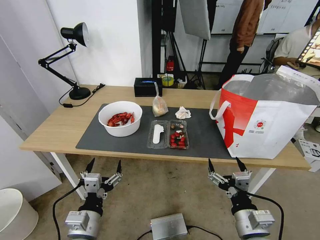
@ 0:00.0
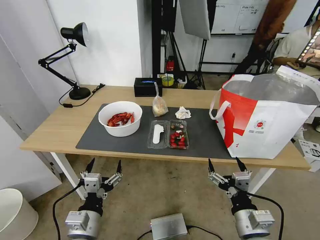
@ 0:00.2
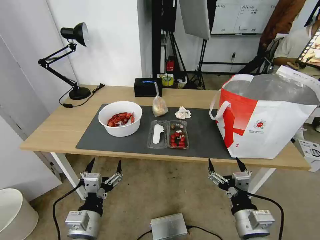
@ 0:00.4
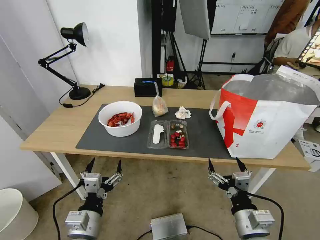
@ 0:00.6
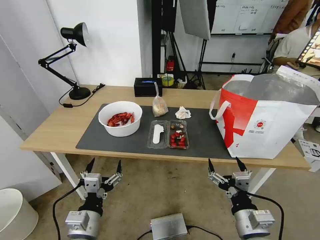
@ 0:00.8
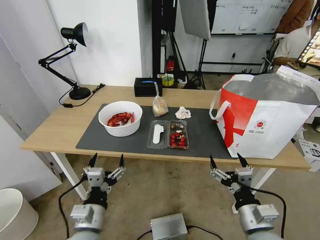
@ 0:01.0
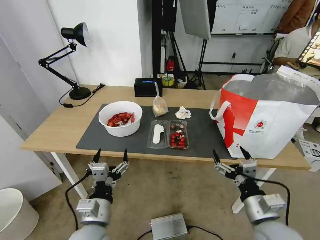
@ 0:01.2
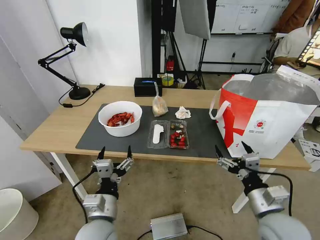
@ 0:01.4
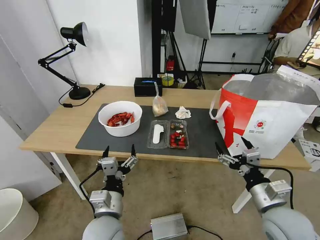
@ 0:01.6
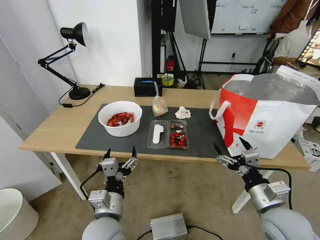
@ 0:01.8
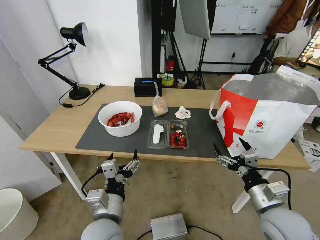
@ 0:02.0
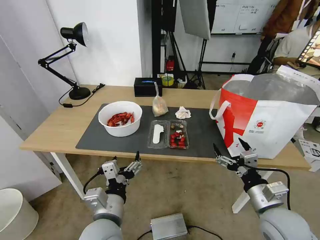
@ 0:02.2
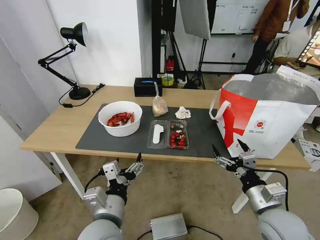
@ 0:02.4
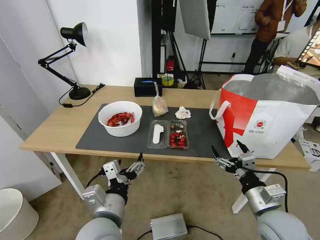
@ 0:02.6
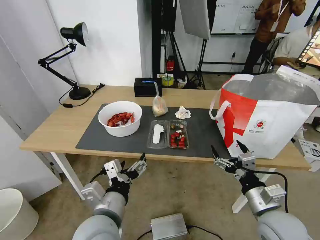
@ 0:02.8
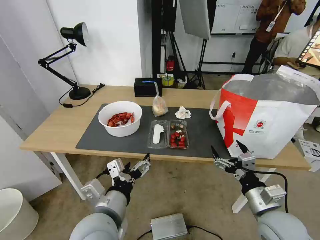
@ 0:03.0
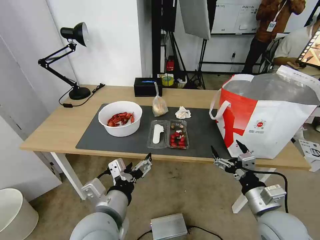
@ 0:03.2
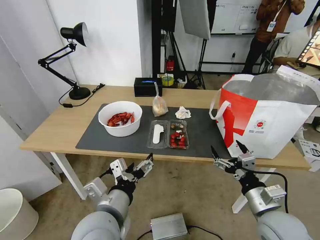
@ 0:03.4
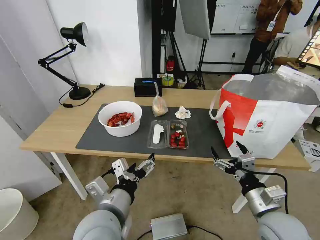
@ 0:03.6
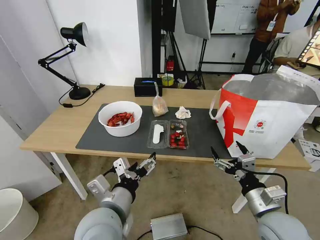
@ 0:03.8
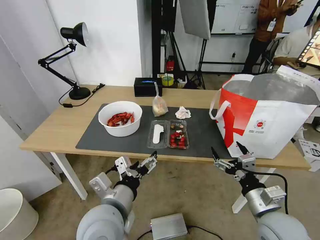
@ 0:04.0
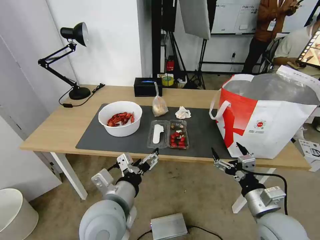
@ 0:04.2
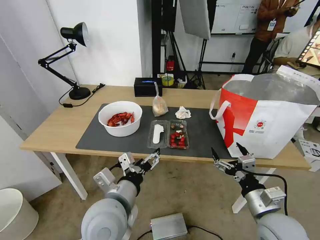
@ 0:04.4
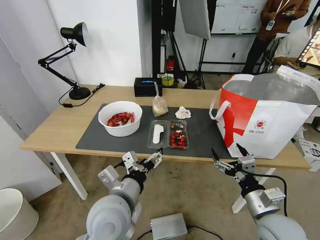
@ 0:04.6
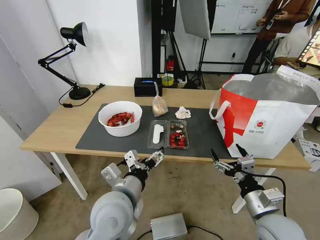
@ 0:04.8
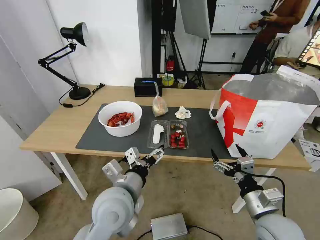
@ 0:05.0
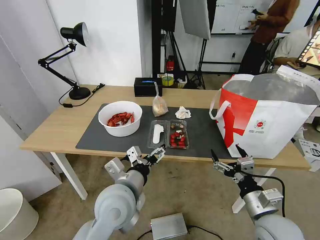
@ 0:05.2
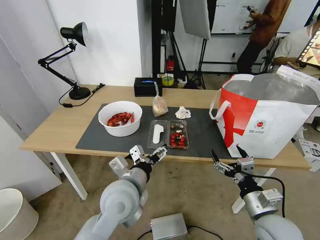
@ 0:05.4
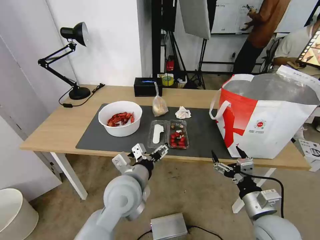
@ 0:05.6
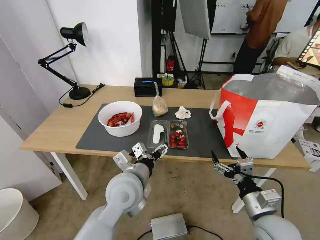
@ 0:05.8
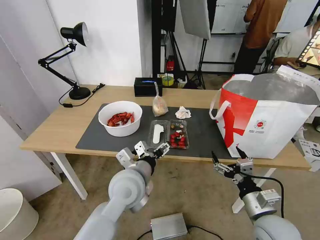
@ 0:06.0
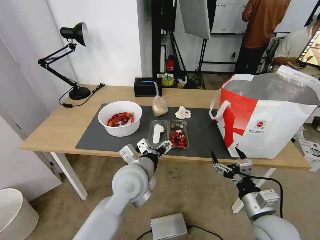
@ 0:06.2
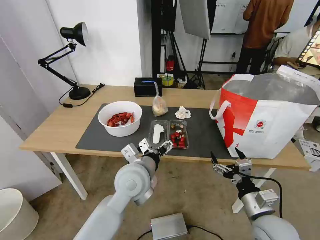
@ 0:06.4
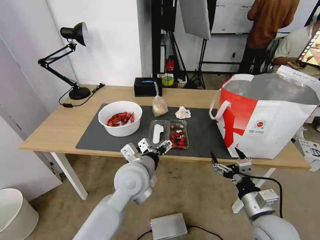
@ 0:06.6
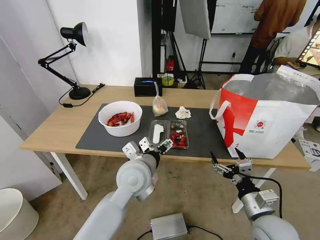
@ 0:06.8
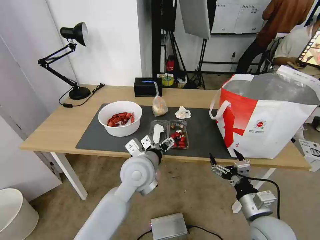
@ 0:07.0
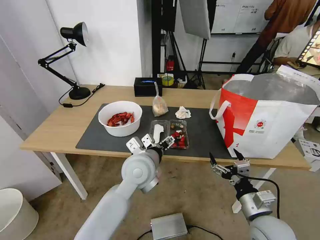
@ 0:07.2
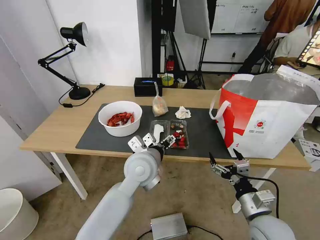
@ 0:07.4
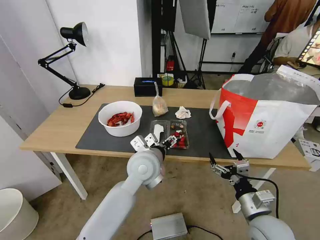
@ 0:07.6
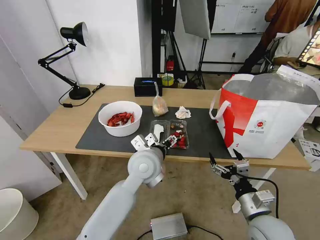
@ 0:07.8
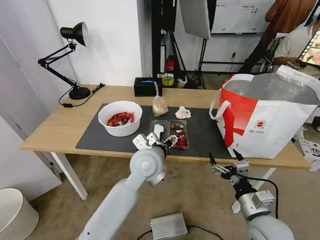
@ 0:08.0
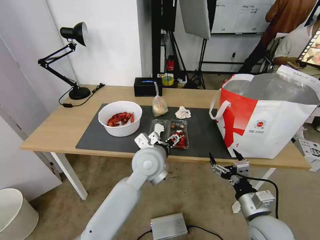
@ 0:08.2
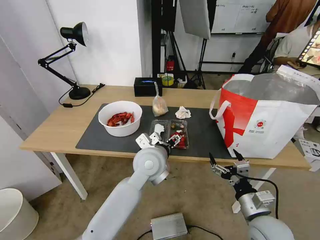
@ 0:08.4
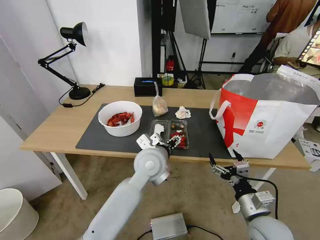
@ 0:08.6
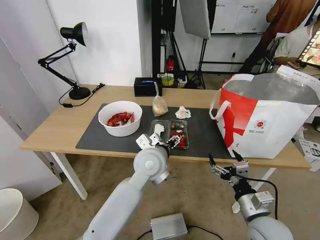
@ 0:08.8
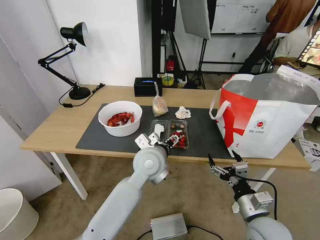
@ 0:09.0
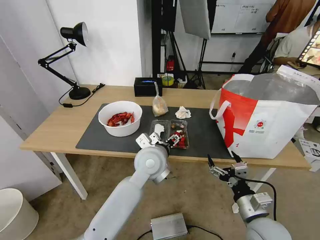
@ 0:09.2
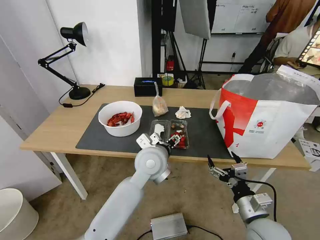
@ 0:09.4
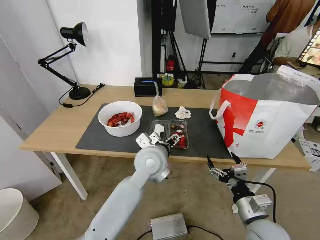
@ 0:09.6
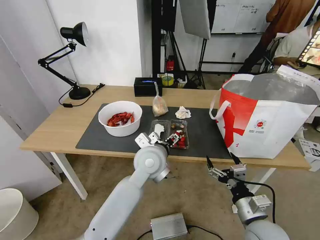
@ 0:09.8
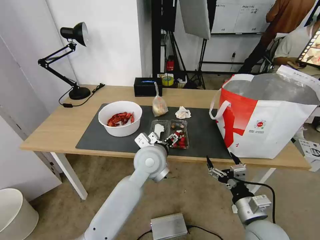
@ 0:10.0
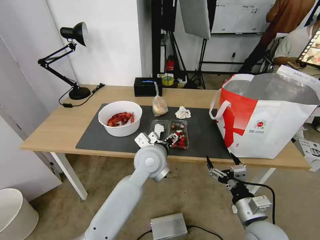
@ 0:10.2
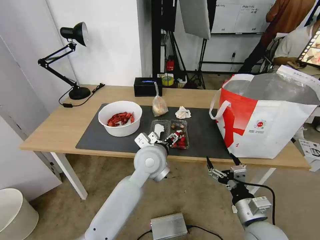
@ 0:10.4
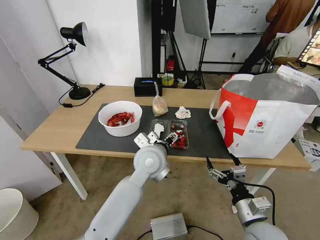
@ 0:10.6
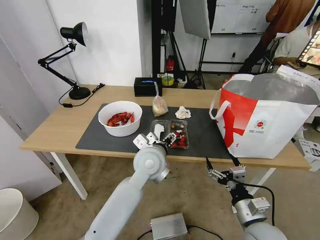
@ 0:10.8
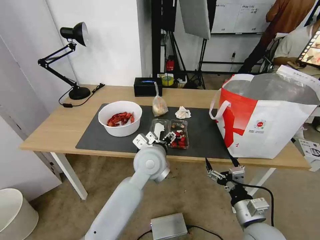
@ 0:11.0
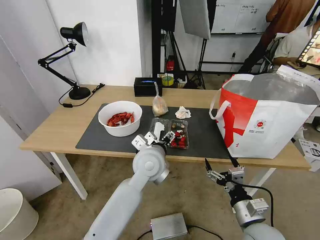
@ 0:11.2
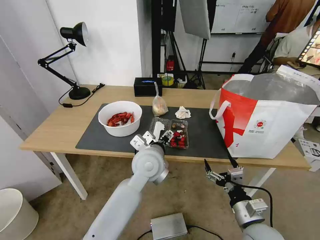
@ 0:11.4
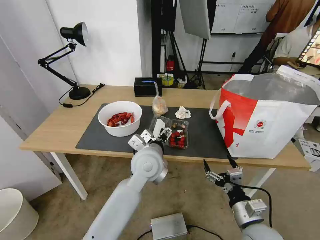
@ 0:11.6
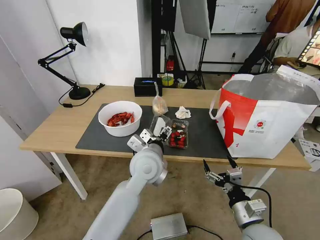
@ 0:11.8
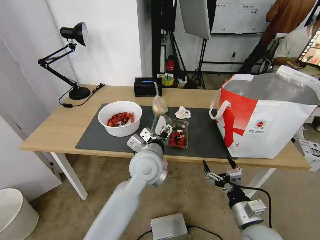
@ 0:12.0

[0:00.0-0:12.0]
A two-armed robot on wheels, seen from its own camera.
Task of the whole recording: Pick up the trash from the table and place it into the takeout bag.
0:01.6 to 0:03.0: The left gripper travels upward by about 10 cm.
0:03.0 to 0:04.4: The grippers make only small movements.
0:04.4 to 0:06.0: The left gripper heads forward, covering about 10 cm.
0:06.0 to 0:07.6: The left gripper moves forward, some 5 cm.
0:07.6 to 0:09.0: The grippers make only small movements.
0:09.0 to 0:10.4: The two grippers keep their place.
0:10.4 to 0:12.0: The grippers stay close to where they were, moving slightly.

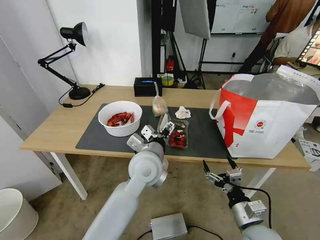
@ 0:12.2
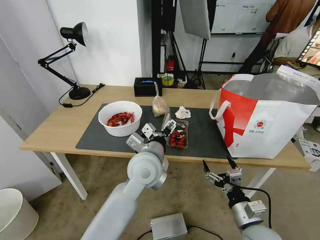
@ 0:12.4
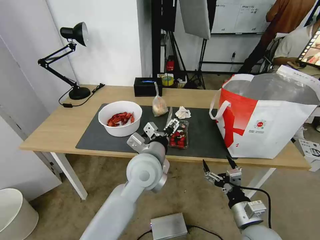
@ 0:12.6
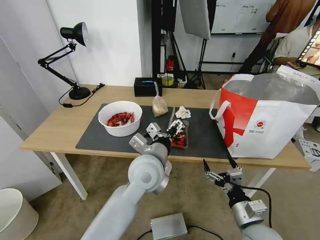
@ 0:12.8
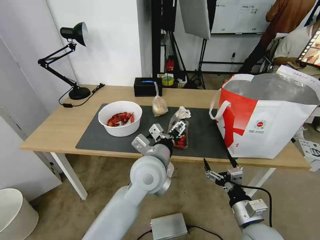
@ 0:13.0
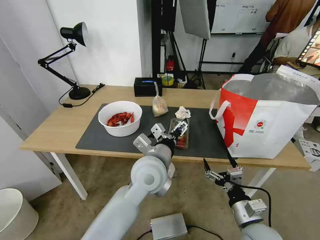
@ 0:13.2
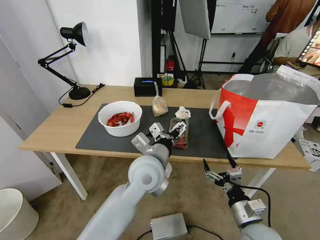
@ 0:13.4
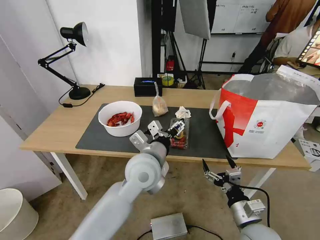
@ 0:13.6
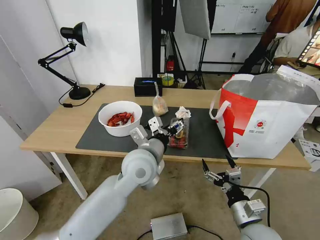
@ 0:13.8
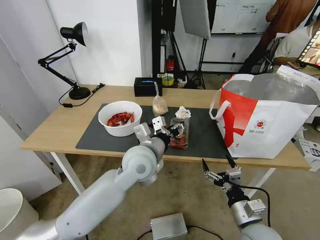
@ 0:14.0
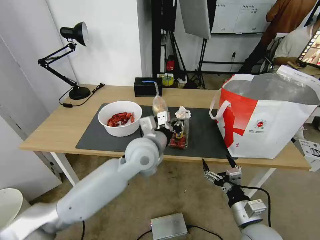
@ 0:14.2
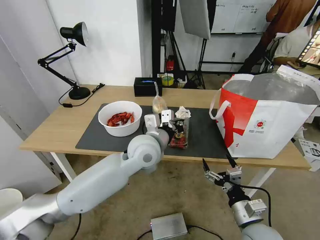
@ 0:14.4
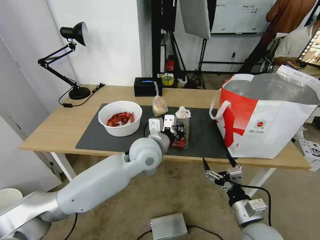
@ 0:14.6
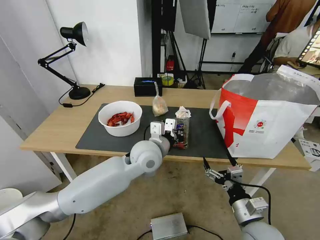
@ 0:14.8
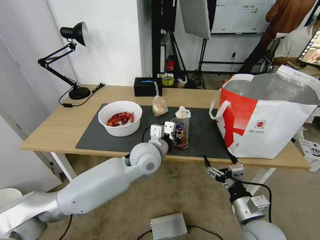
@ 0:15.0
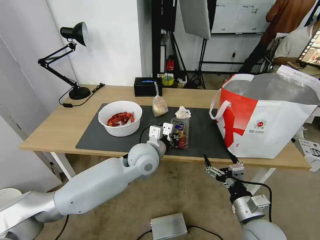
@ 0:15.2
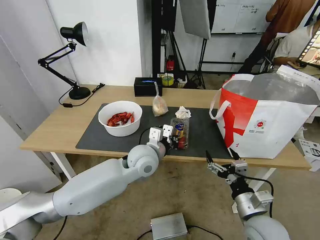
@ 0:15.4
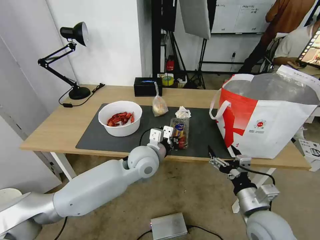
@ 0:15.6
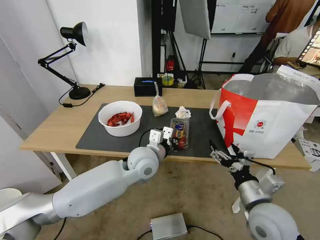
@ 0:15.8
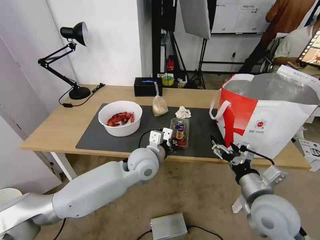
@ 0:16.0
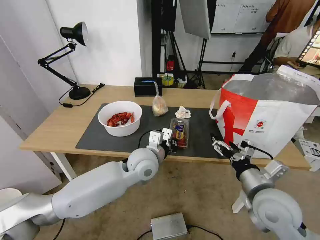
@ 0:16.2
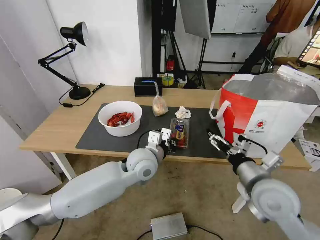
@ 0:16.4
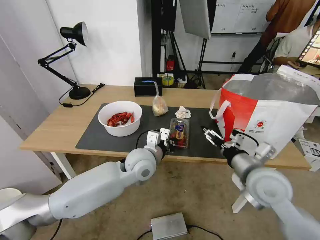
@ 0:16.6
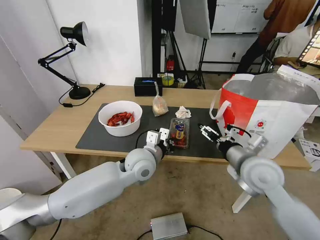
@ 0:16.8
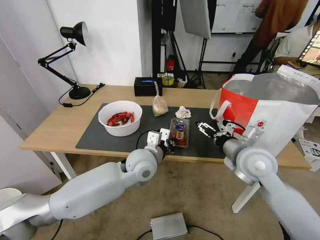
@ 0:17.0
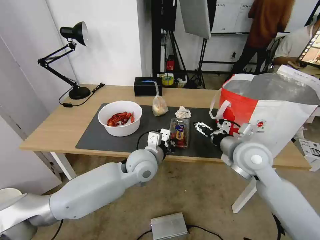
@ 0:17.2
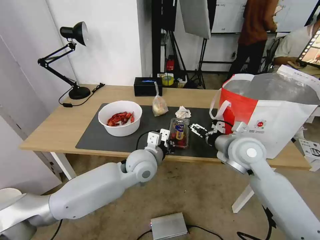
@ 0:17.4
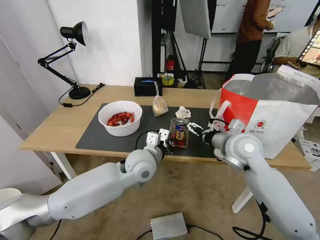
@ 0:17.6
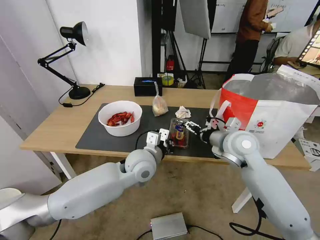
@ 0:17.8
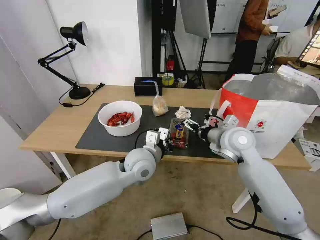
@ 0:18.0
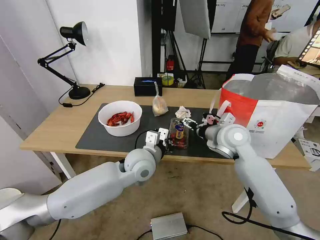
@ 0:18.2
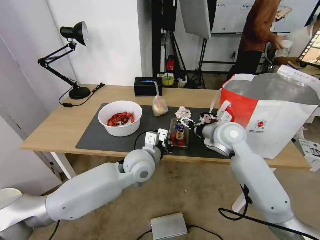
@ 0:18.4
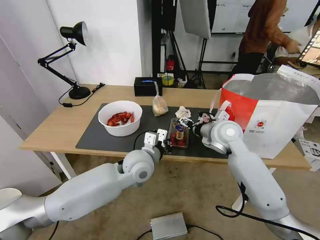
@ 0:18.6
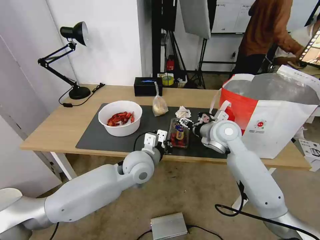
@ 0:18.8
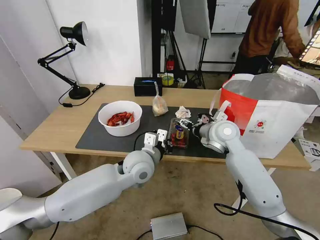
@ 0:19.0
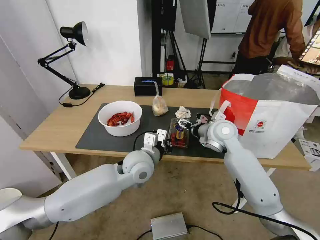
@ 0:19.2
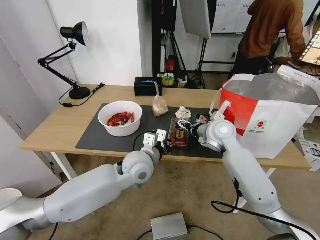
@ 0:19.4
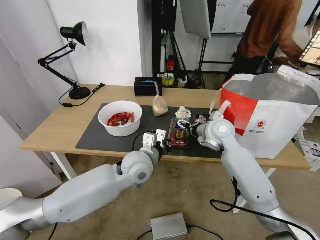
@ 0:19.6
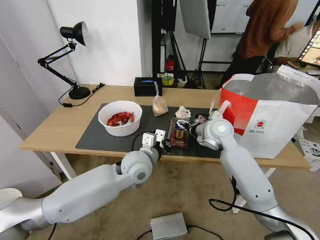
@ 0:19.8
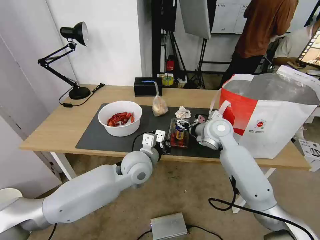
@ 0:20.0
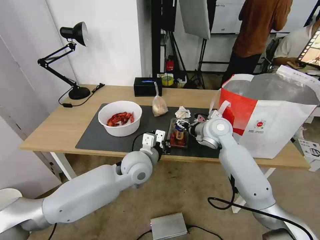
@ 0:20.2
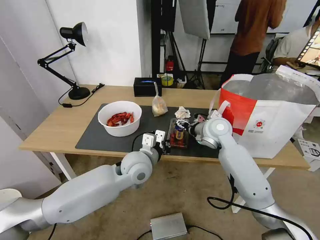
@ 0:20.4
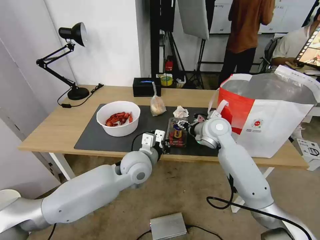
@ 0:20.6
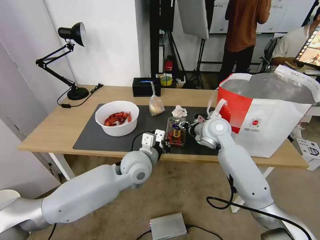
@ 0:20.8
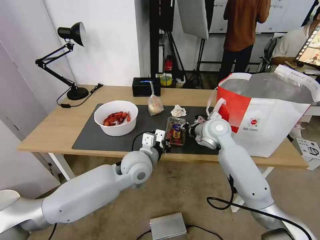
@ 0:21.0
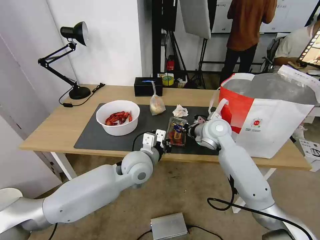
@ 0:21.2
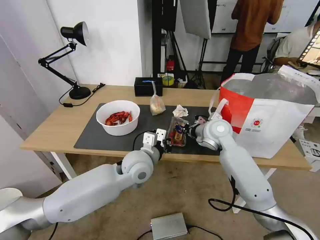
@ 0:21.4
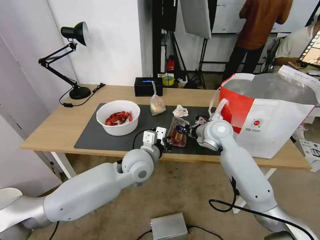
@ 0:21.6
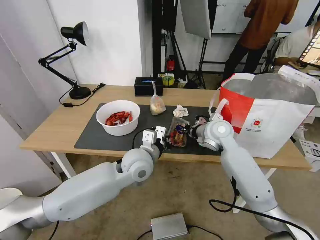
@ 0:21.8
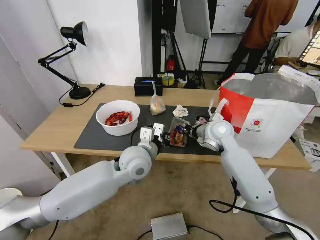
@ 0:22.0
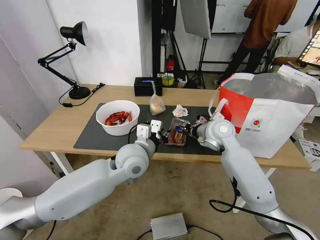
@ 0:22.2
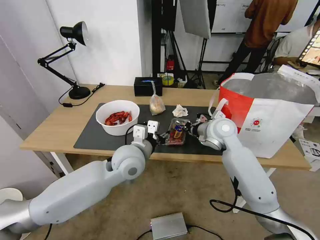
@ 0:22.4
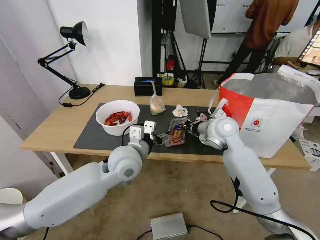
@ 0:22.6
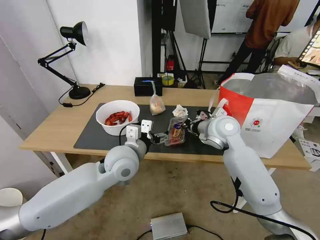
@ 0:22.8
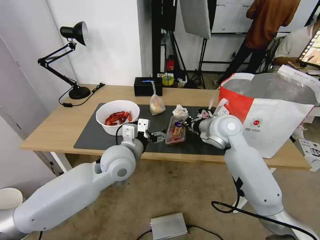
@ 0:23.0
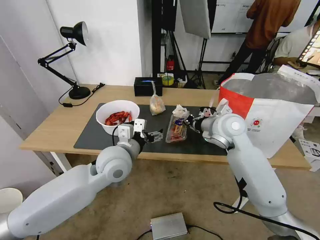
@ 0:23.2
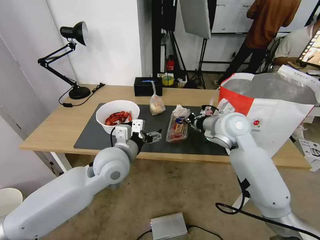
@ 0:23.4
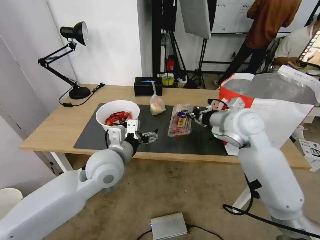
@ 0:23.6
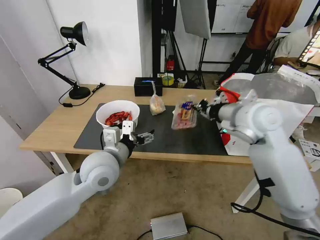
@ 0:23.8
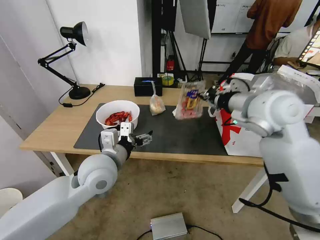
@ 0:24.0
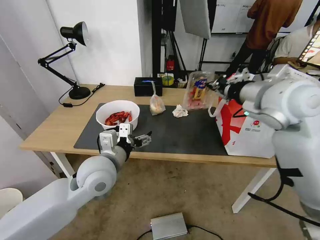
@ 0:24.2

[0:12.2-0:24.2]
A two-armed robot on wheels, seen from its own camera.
Task of the whole recording: Pick up the trash from the table and place it into the takeout bag.
0:13.8 to 0:15.2: The left gripper shifts by roughly 5 cm, and closes.
0:15.2 to 0:16.6: The right gripper goes about 15 cm upward and forward.
0:16.6 to 0:18.2: The right gripper goes roughly 15 cm forward.
0:18.2 to 0:19.8: The right gripper moves approximately 5 cm.
0:19.8 to 0:21.2: The right gripper closes its fingers.
0:21.2 to 0:22.6: The left gripper opens.
0:22.6 to 0:24.2: The right gripper moves upward and backward, approximately 20 cm. Meanwhile the left gripper moves to the left, roughly 5 cm.
